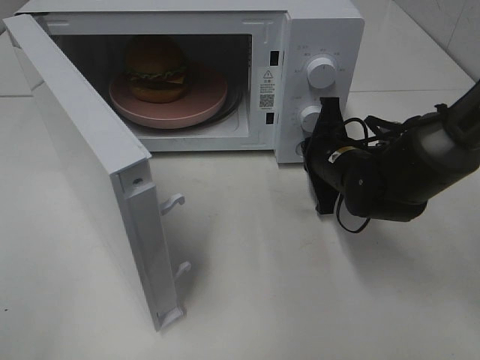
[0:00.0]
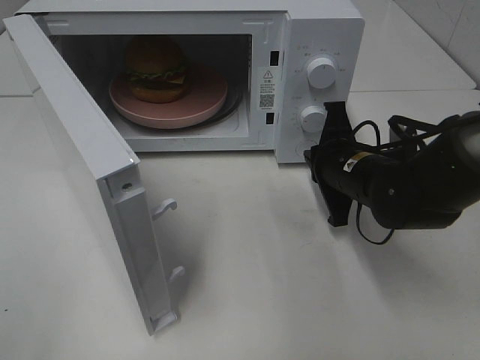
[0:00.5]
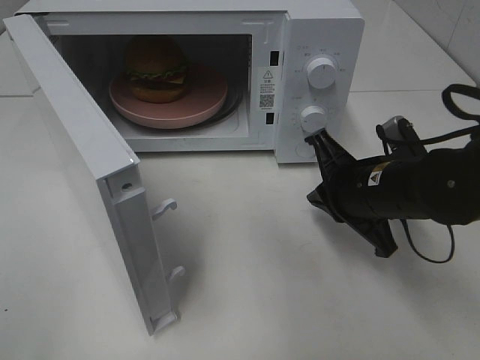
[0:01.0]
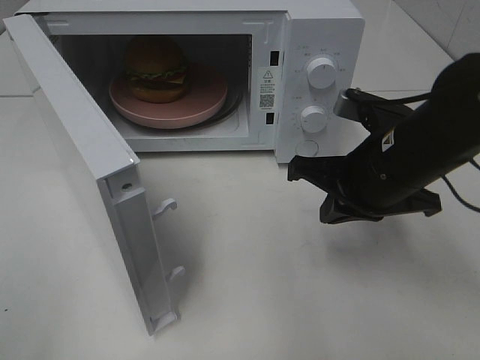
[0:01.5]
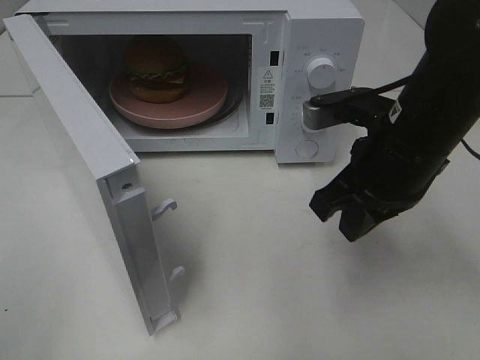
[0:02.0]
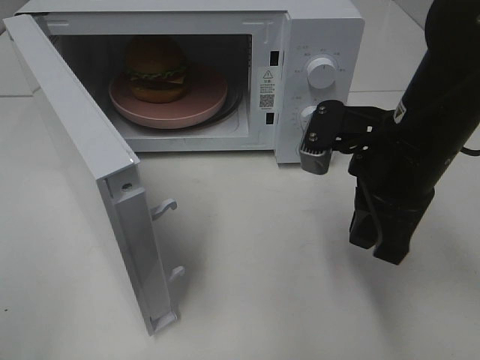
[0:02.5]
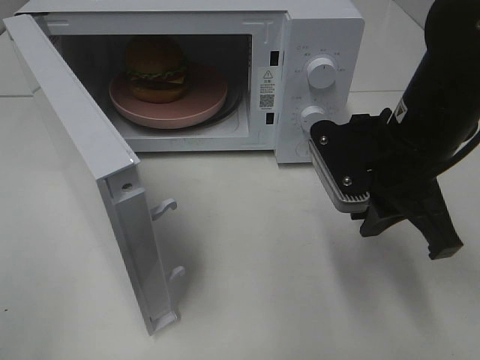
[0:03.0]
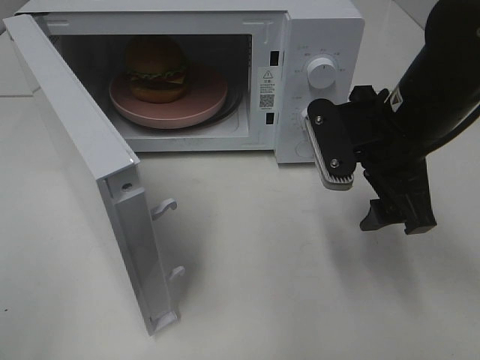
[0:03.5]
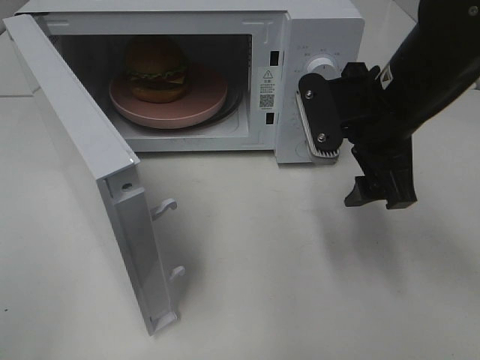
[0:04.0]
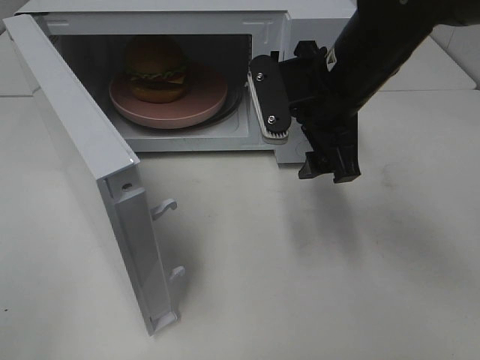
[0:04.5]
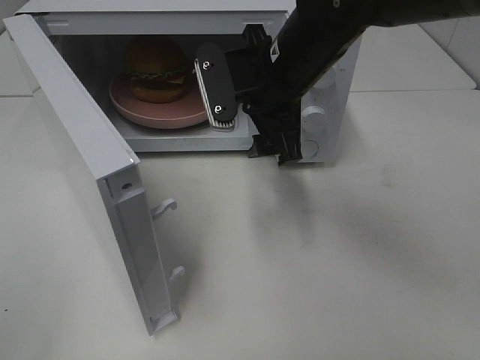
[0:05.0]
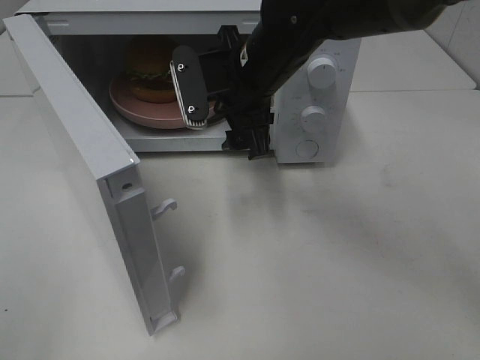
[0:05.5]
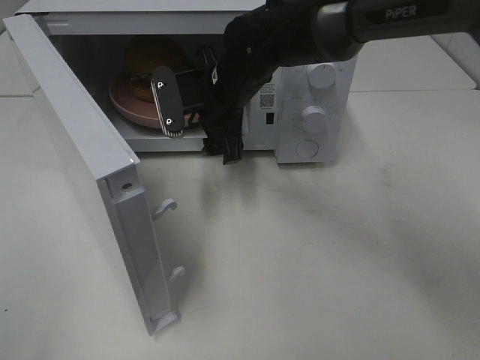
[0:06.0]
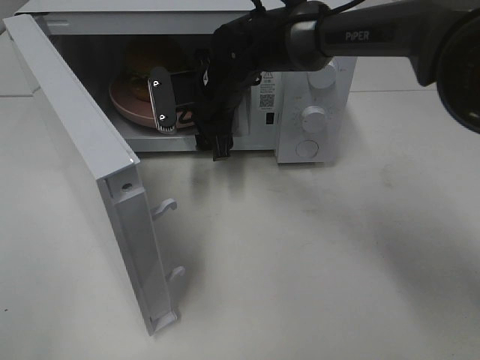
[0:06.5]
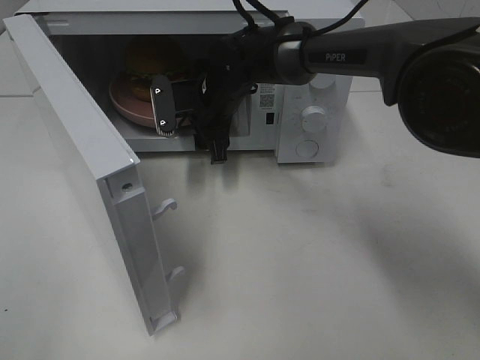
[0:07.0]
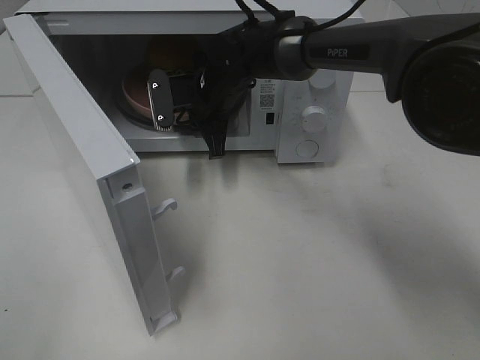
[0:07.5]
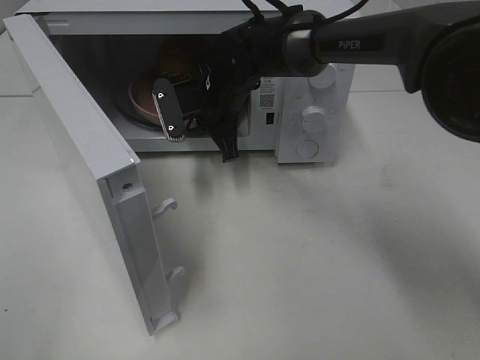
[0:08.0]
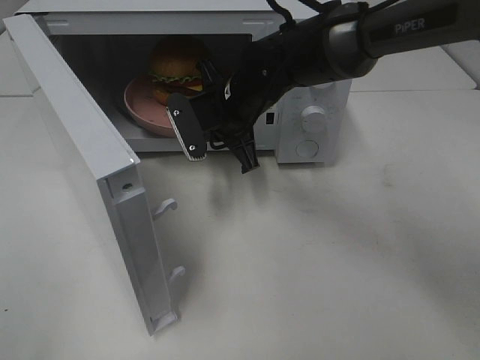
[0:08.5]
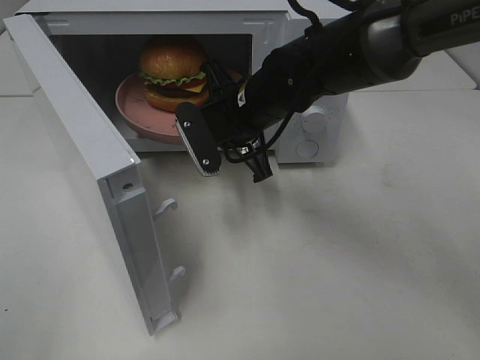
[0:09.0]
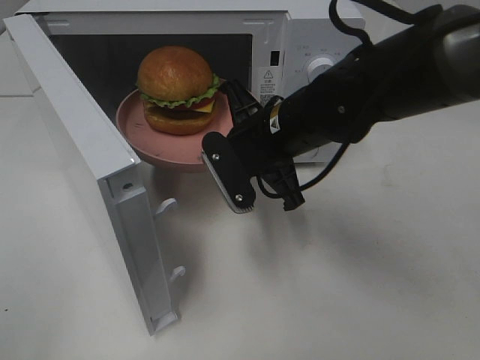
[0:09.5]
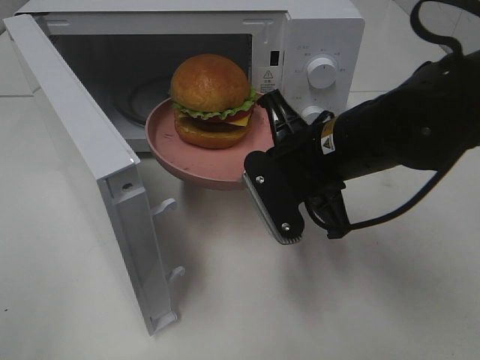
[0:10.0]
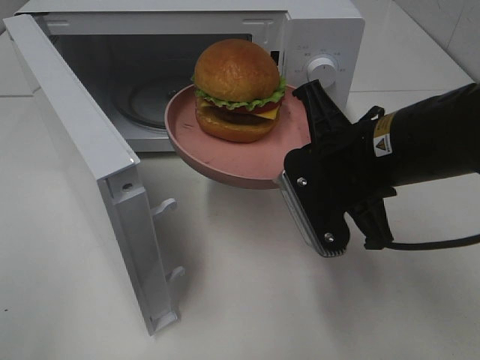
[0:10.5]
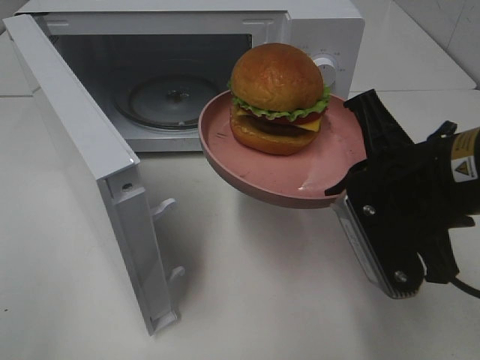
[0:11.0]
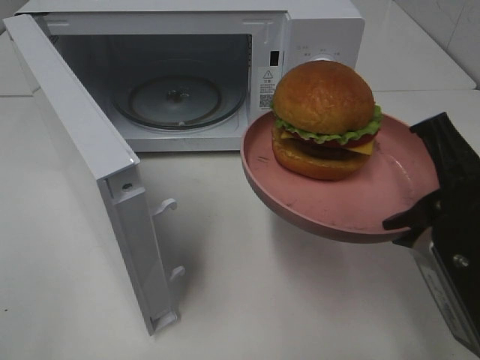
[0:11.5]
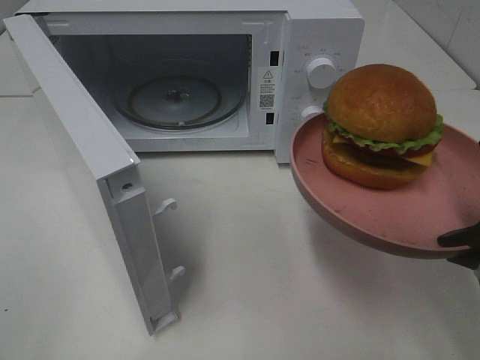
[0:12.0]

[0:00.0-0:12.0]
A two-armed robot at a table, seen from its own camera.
Task of the whole recording: Heat the burger.
Step, 0:01.0 to 0:07.5: Right hand: grab the plate with the hamburger.
0:00.0 to 0:02.0: The right gripper heads upward and backward, covering approximately 15 cm.
0:02.0 to 0:04.0: The right gripper opens its fingers.
0:04.0 to 0:06.0: The right gripper moves to the left and forward, roughly 20 cm.
0:06.0 to 0:08.0: The right gripper closes.
0:08.0 to 0:10.0: The right gripper shifts approximately 20 cm backward and to the right.
0:10.0 to 0:12.0: The right gripper heads backward and to the right, covering approximately 20 cm.

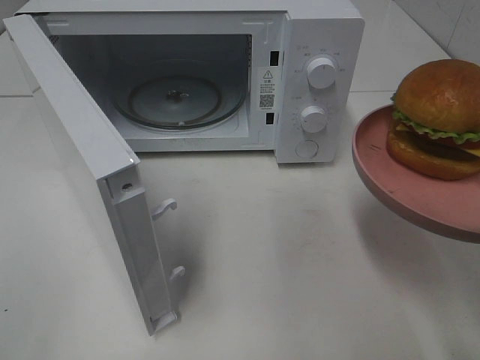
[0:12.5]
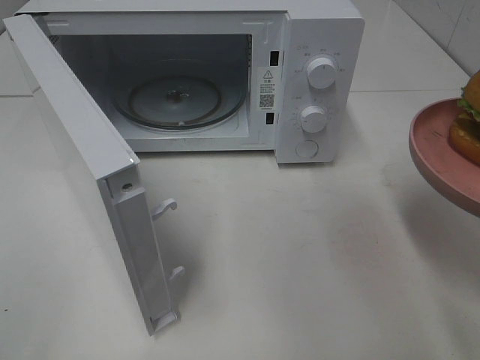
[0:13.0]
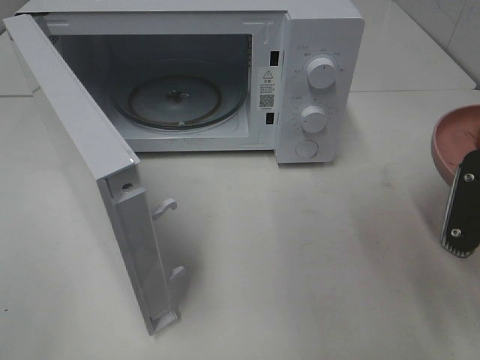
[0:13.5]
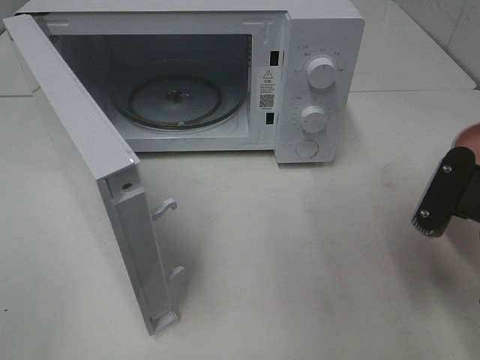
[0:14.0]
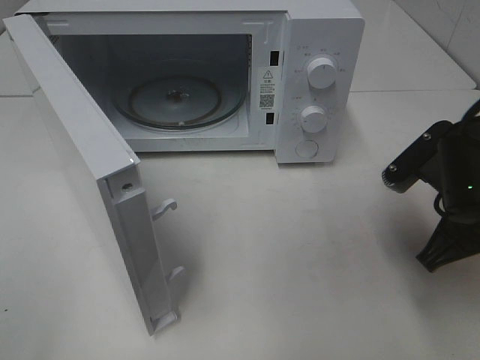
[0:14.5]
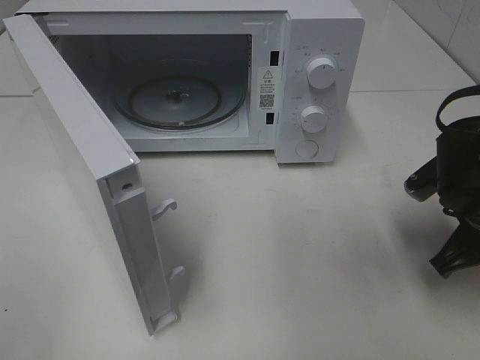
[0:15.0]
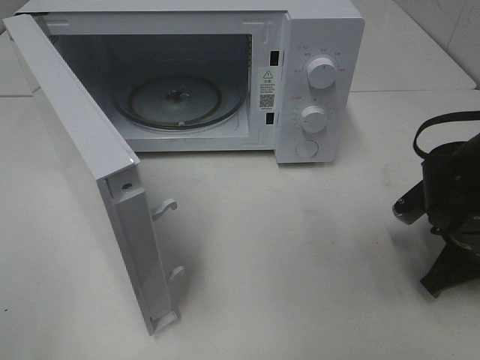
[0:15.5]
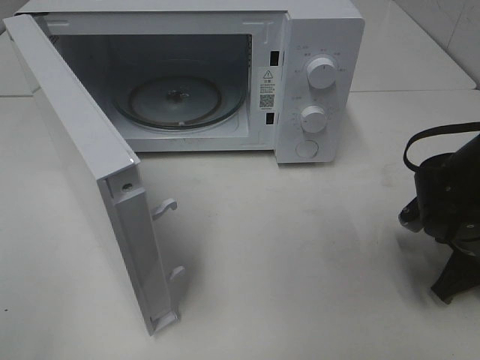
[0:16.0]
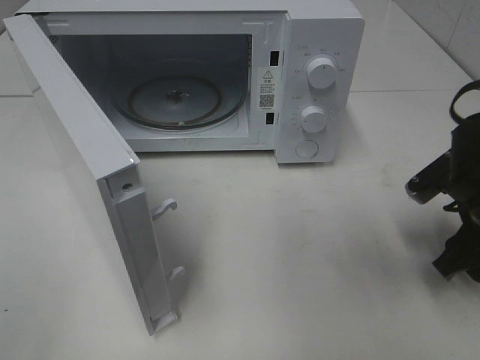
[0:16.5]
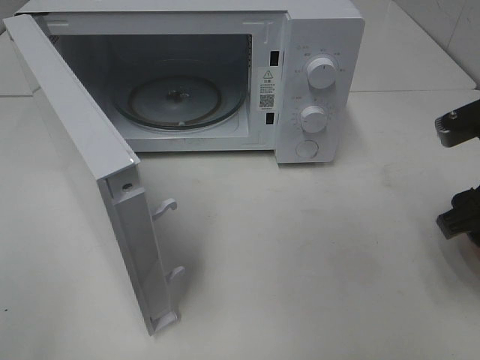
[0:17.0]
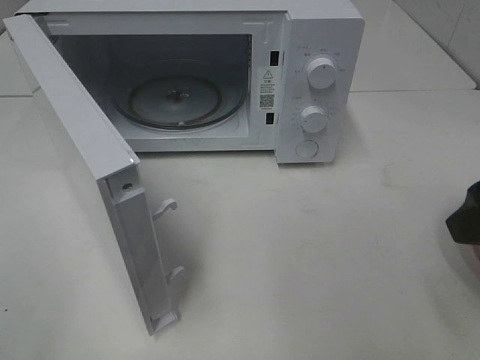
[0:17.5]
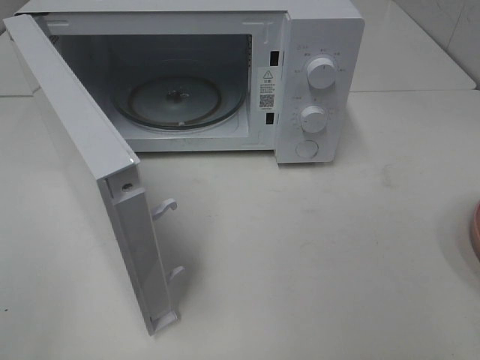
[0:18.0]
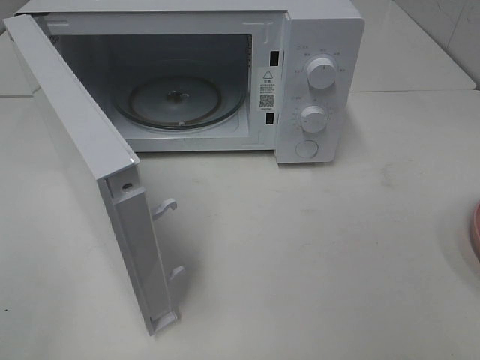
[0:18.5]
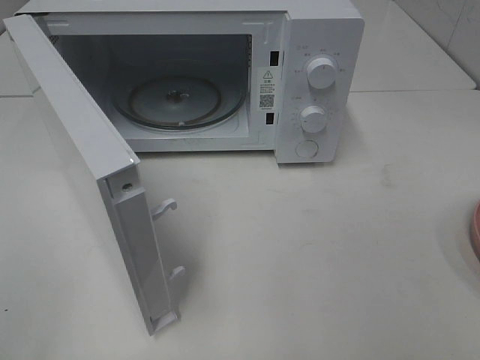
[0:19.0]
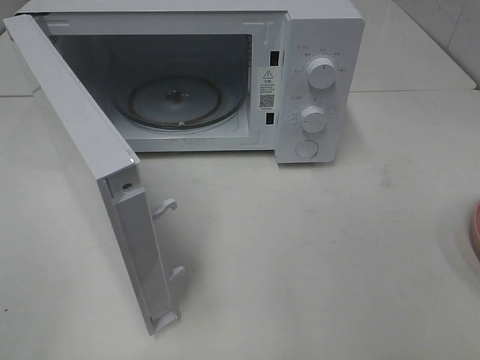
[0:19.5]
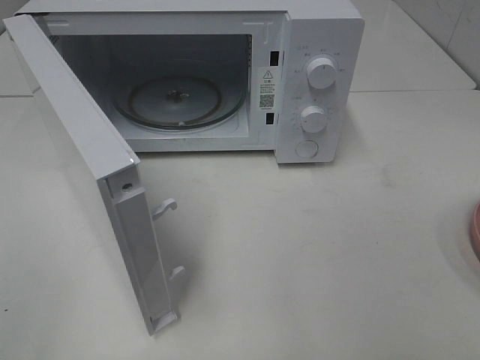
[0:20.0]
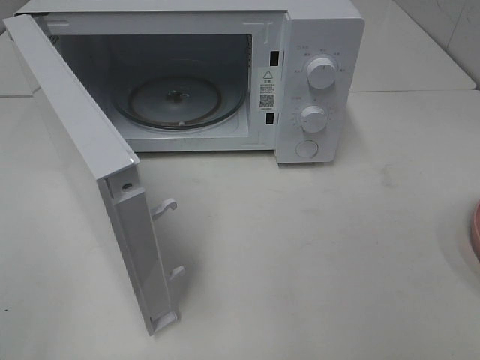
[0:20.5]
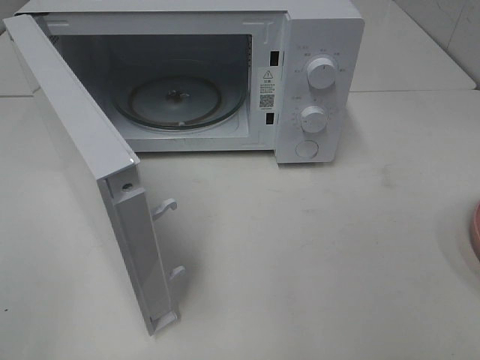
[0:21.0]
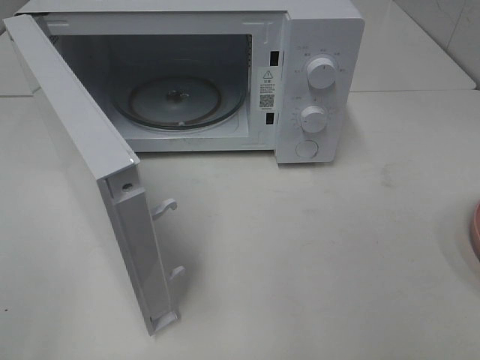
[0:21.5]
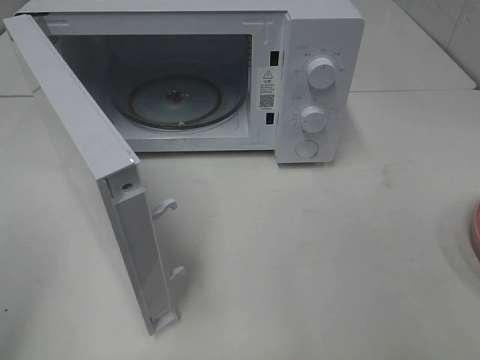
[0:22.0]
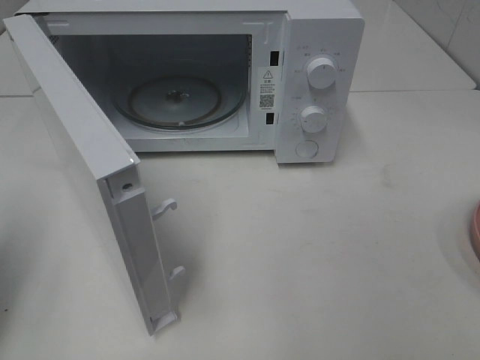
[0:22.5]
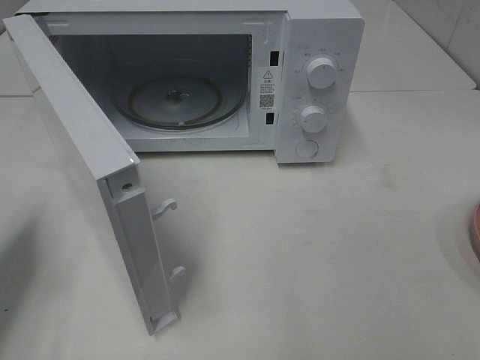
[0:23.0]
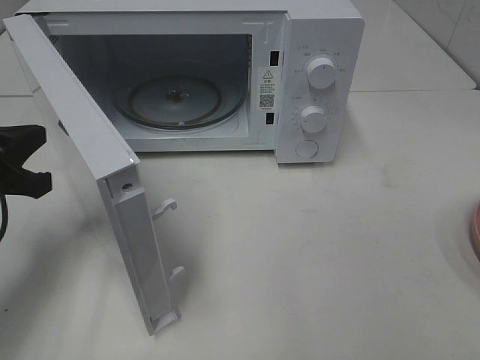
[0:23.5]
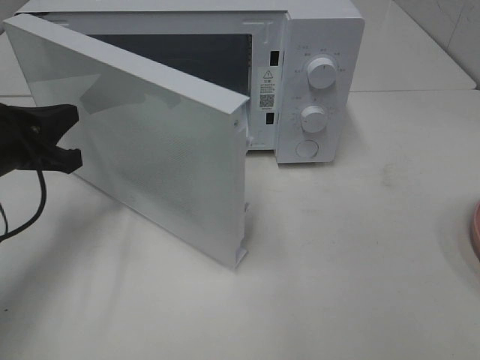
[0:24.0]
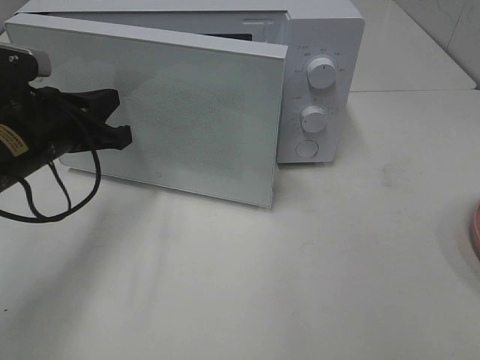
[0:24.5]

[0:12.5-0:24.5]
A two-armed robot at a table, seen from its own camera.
Task of the whole recording: Heat the burger.
Step, 0:12.5 to 0:16.5: Right hand: place the plate on the table.
0:12.5 to 0:14.5: The right gripper shifts some 10 cm forward and downward.
0:14.5 to 0:16.5: The right gripper moves roughly 10 cm downward and comes back, and opens up.
0:16.5 to 0:18.5: The right gripper travels backward and upward by some 25 cm.
0:20.5 to 0:22.5: The left gripper heads forward, covering roughly 15 cm, and closes its fingers.
0:22.5 to 0:24.5: The left gripper heads forward, to the right and downward, covering approximately 20 cm.

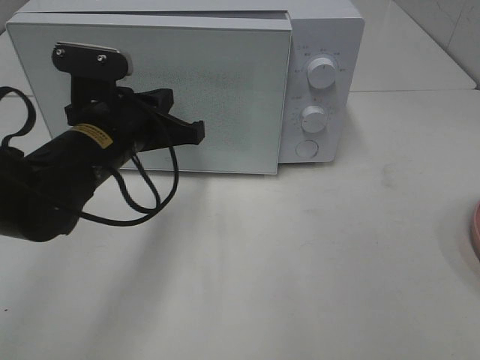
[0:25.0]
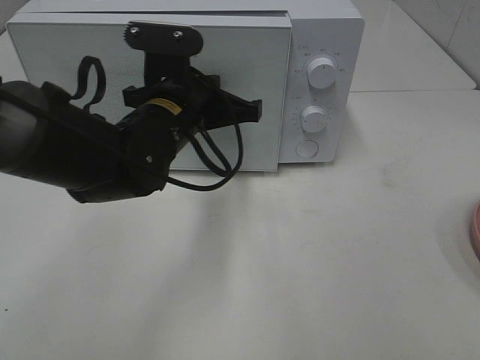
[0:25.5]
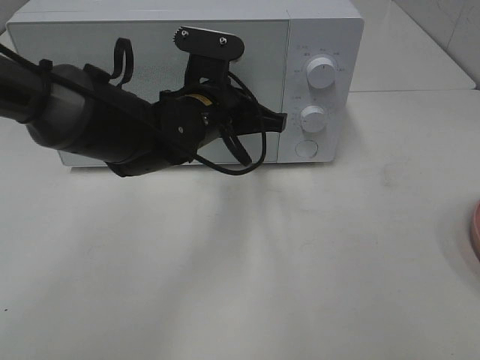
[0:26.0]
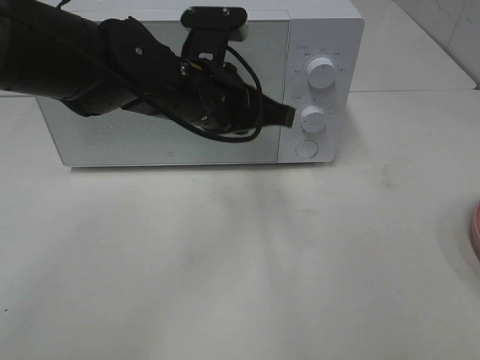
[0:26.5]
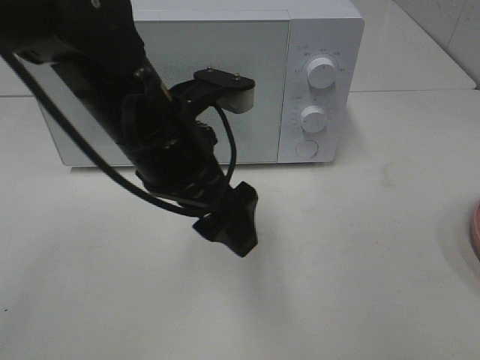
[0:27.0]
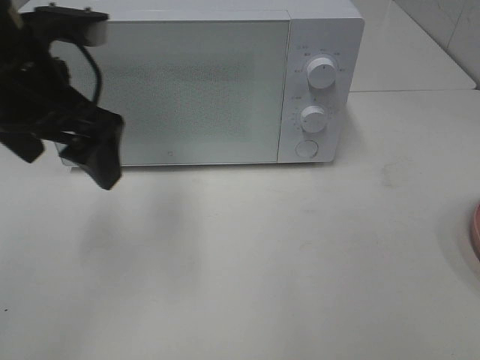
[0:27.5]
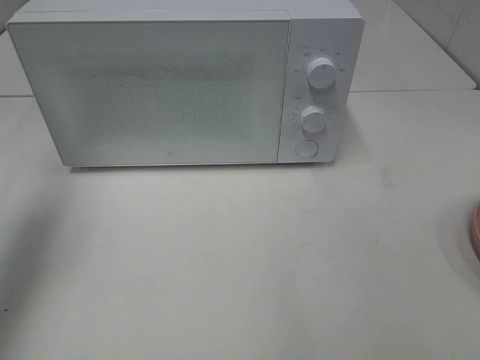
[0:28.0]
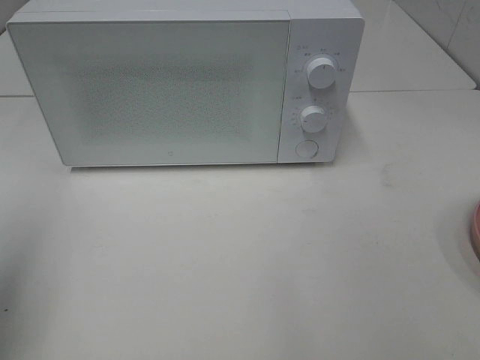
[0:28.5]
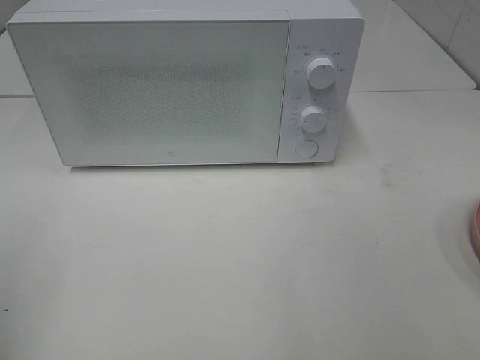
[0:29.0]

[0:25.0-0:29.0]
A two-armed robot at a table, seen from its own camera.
Task of the whole recording: Heat the burger.
0:25.0 to 0:27.0: The left gripper heads upward and to the right, covering some 10 cm, and opens.
0:27.0 to 0:29.0: The left gripper travels to the left and backward by approximately 30 cm.
